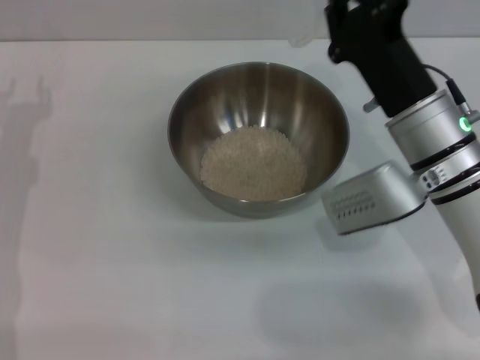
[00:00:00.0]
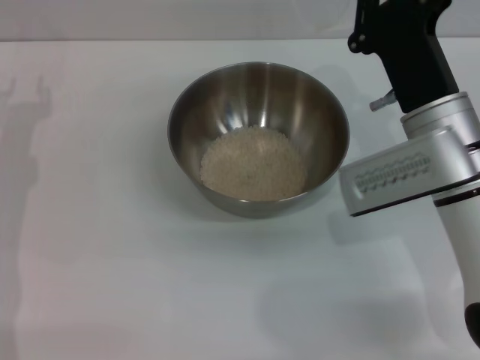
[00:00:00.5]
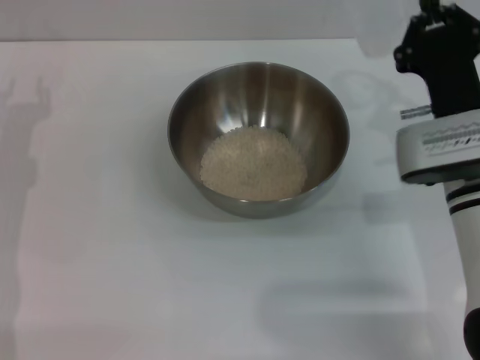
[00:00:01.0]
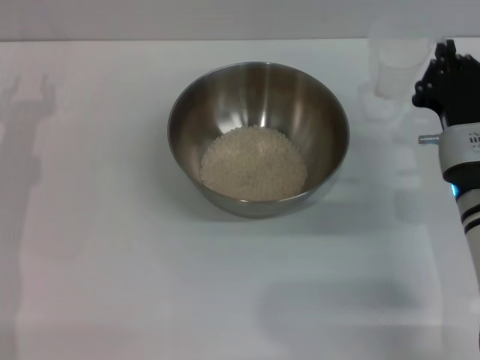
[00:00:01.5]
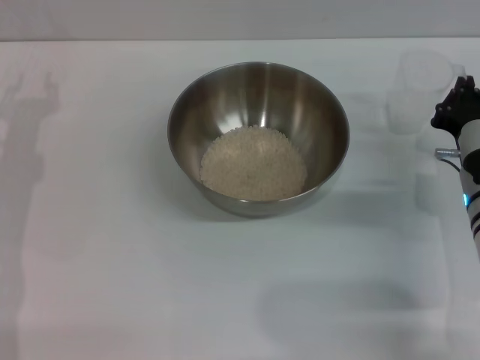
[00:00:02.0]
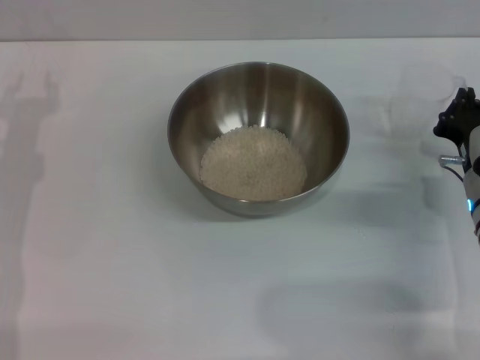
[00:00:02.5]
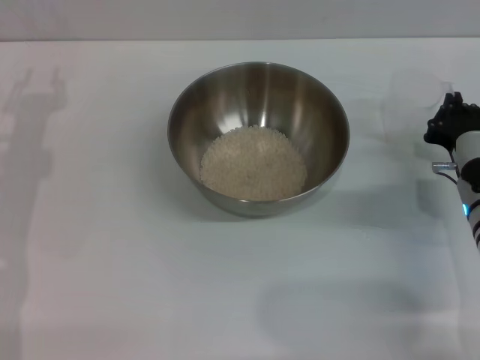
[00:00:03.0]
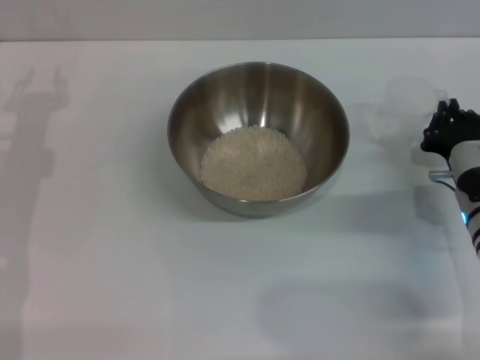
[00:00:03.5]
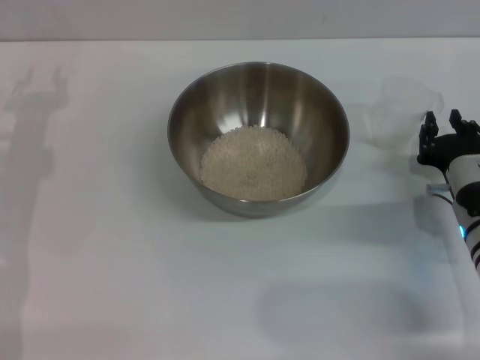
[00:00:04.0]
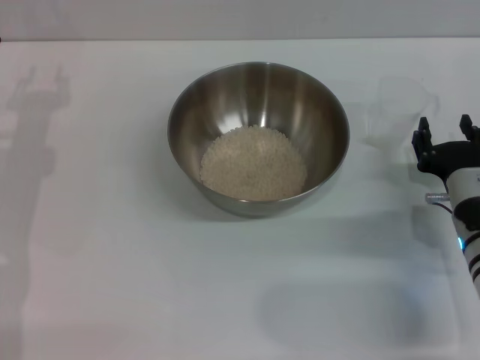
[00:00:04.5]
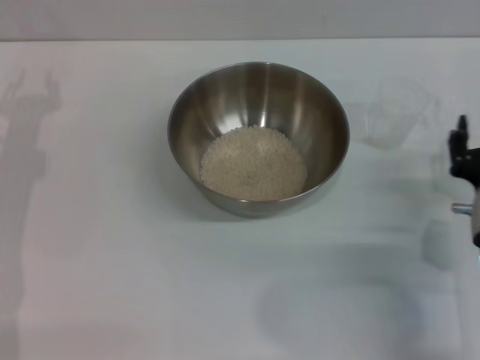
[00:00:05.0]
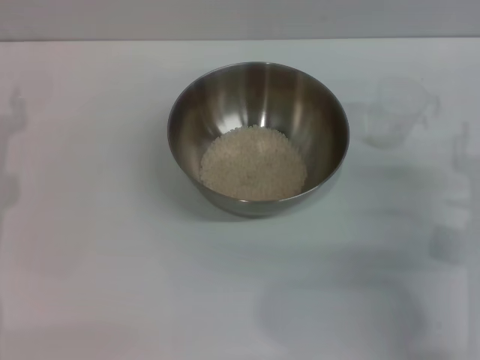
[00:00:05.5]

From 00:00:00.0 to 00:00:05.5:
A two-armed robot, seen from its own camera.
Task of the whole recording: Place the bowl in the middle of the table with one hand and pour the rice from the grain cup into it with the other hand.
Step, from 00:00:00.0 to 00:00:04.0: Place the cup on the table with the right gripper.
From 00:00:00.0 to 00:00:02.0: The right gripper heads to the right and downward, covering approximately 10 cm.
From 00:00:02.0 to 00:00:03.5: The grippers stay close to where they were, moving slightly.
From 00:00:03.5 to 00:00:05.5: The right gripper goes some 5 cm backward, and opens.

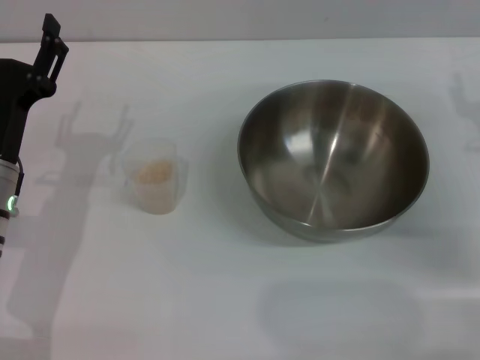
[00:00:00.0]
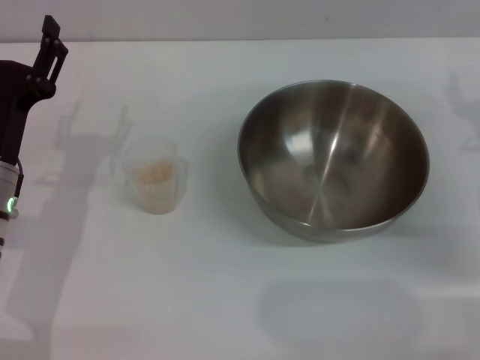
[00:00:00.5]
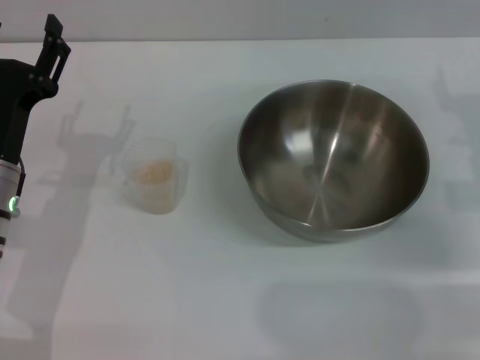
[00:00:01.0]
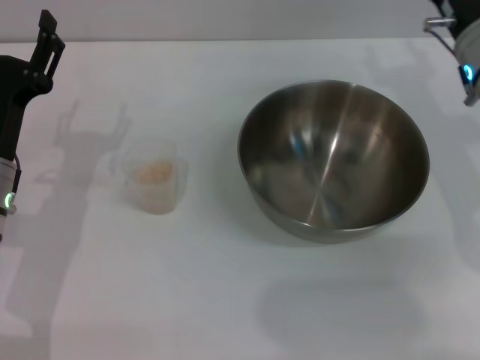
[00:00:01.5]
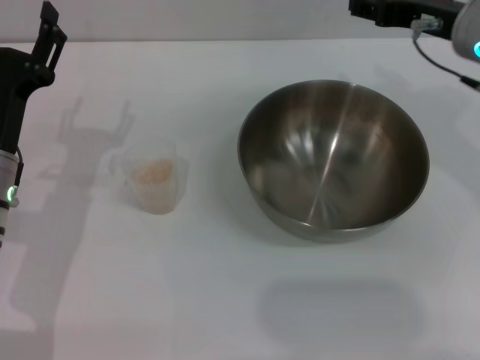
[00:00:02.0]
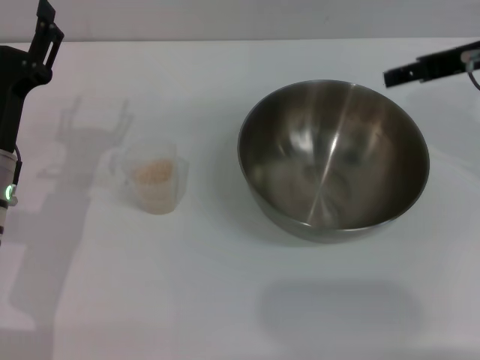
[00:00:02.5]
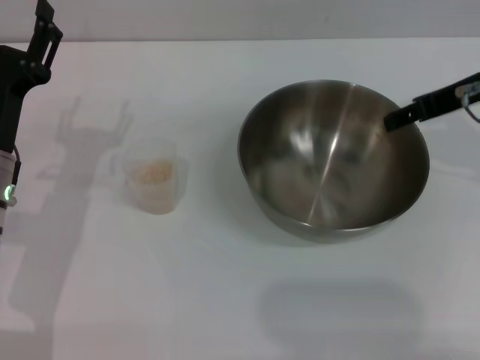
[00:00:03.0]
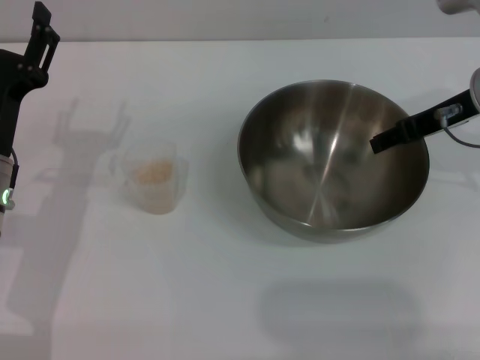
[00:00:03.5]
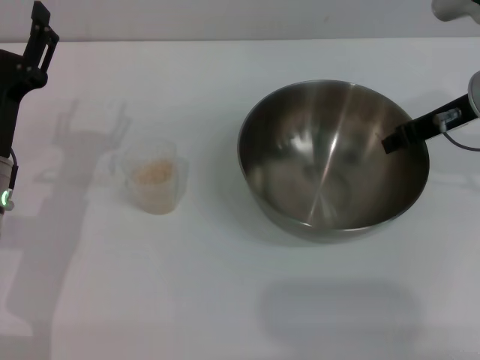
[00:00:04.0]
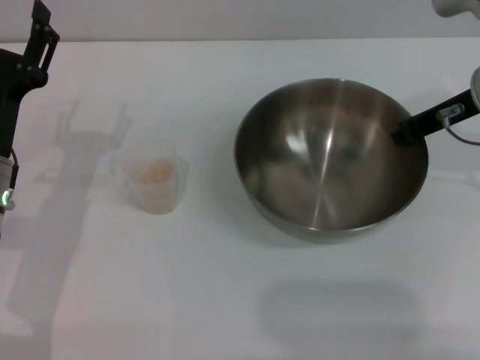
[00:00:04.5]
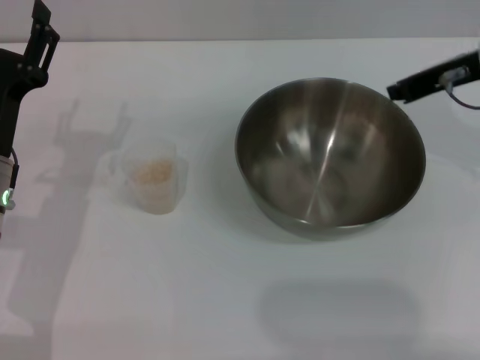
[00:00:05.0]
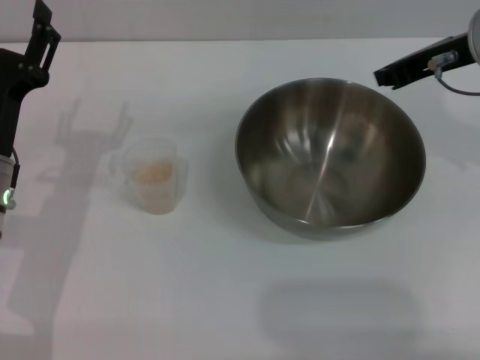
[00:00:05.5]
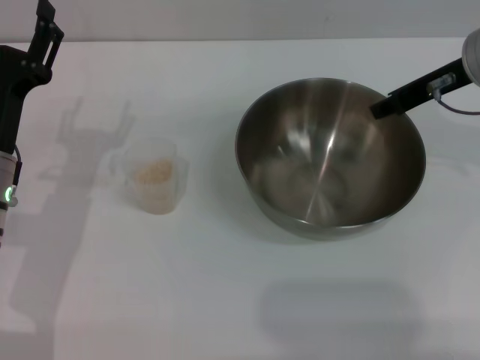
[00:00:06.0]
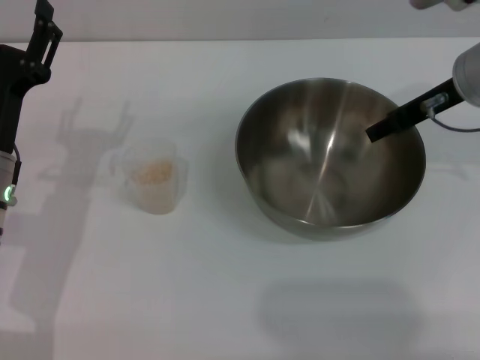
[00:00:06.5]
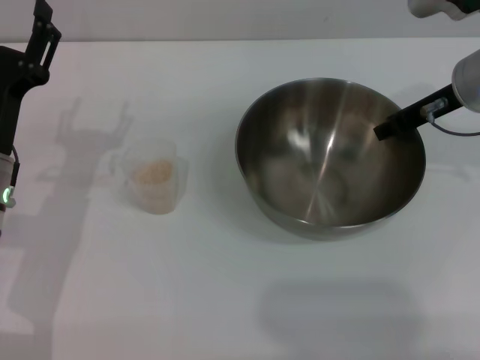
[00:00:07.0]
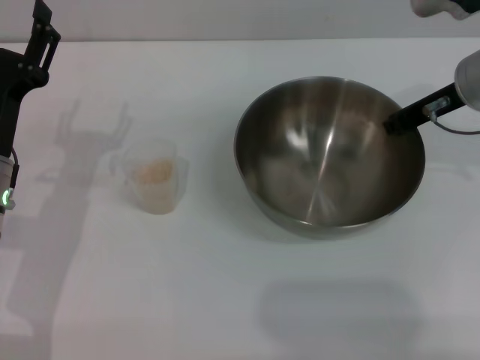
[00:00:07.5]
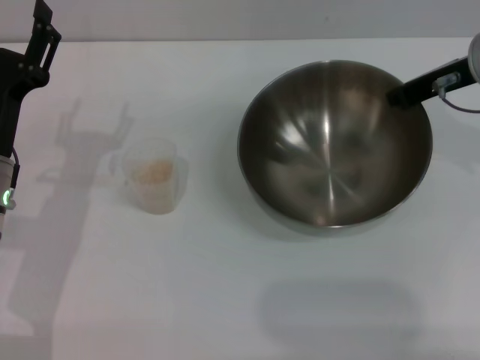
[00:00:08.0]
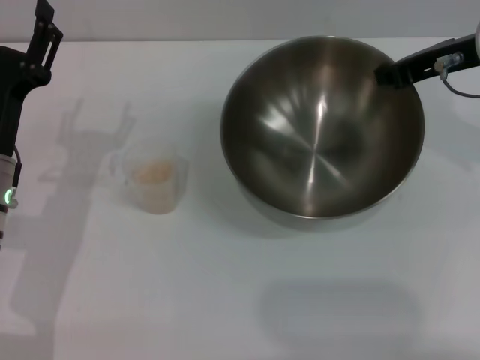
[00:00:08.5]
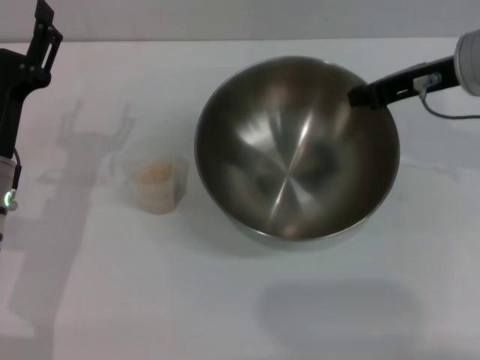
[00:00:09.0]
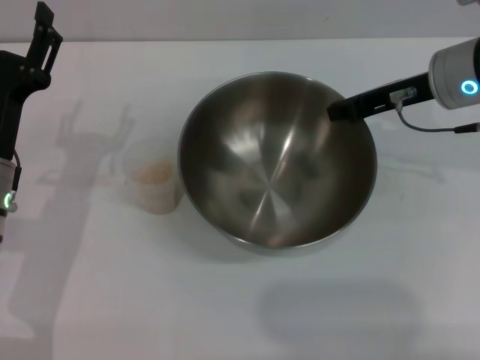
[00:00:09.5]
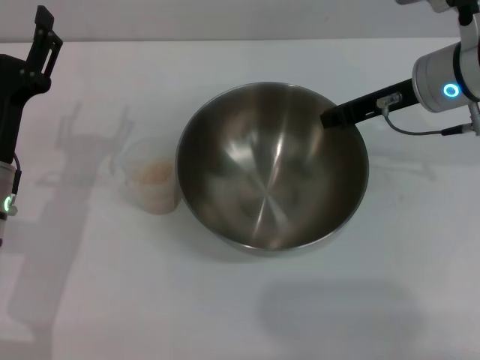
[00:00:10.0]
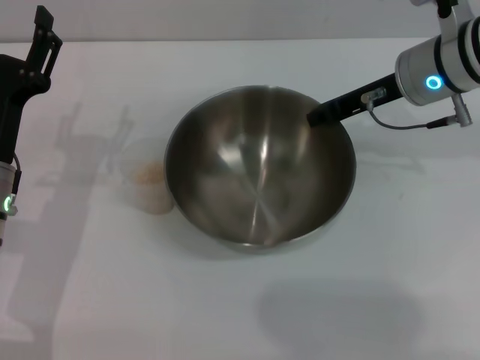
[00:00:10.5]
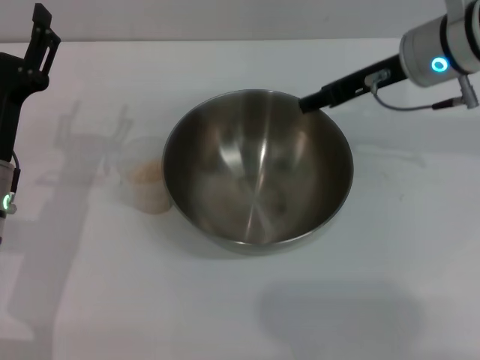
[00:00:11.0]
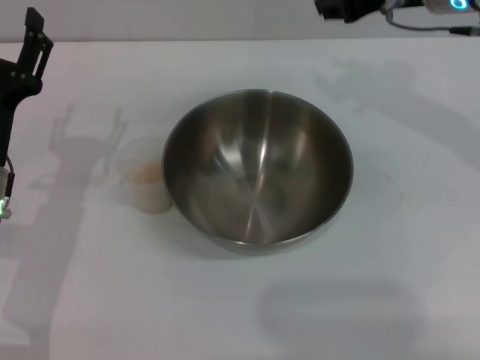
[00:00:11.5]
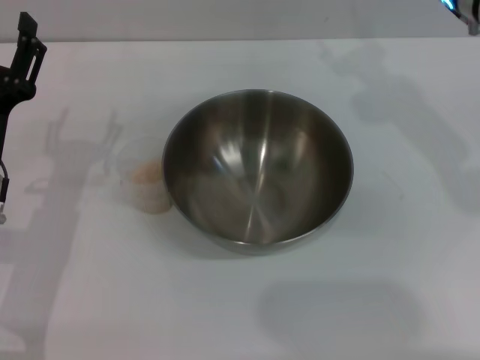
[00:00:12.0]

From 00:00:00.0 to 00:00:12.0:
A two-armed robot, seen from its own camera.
Task of the whole recording: Place the bowl in the middle of the table with one hand and pour the rice from the grain cup into it with the other hand.
Step, from 00:00:00.0 to 00:00:08.5: Pick up the bowl with the right gripper.
Step, from 00:00:09.0 to 00:00:11.0: Place the bowl in the center of view with the right gripper.
From 00:00:00.0 to 00:00:02.0: The right gripper heads upward, to the left and forward, covering some 15 cm.
From 00:00:02.0 to 00:00:04.0: The right gripper closes up.
From 00:00:04.0 to 00:00:06.0: The grippers stay close to where they were, moving slightly.
From 00:00:06.0 to 00:00:08.0: The right gripper opens, then closes once more.
From 00:00:10.0 to 00:00:12.0: The right gripper goes some 5 cm upward, and opens its fingers.

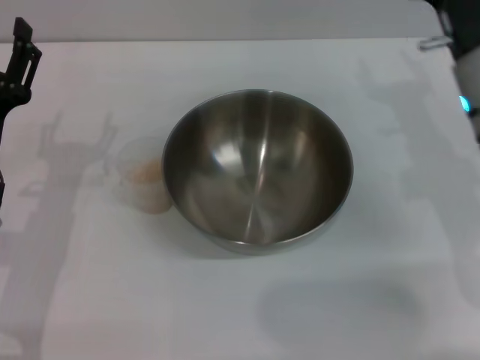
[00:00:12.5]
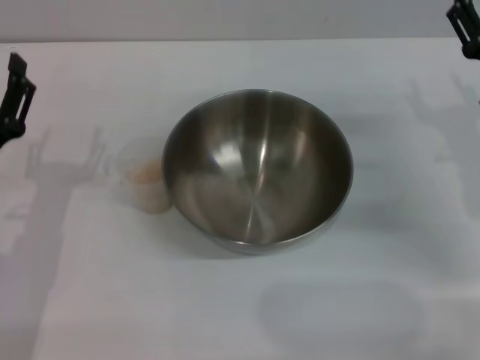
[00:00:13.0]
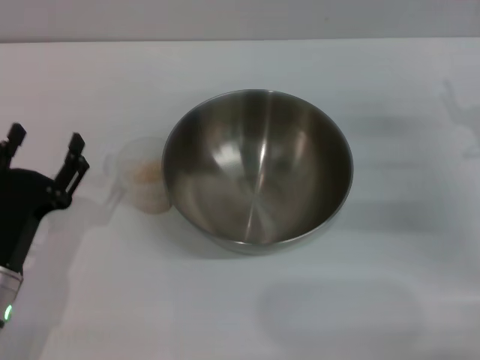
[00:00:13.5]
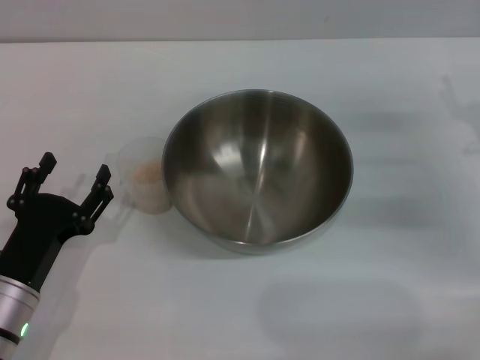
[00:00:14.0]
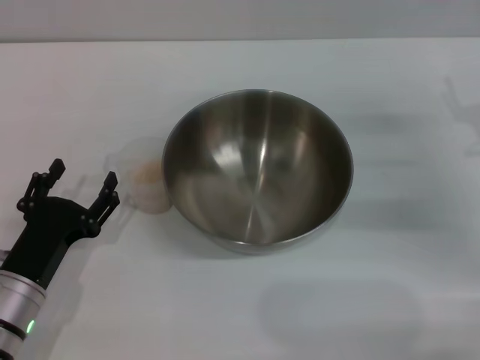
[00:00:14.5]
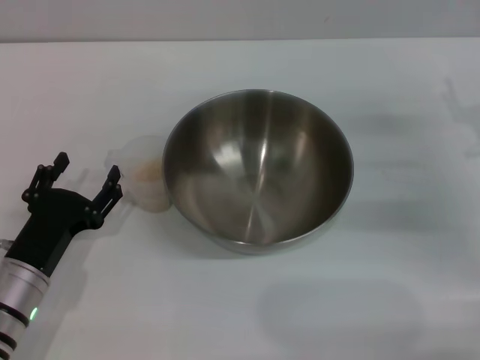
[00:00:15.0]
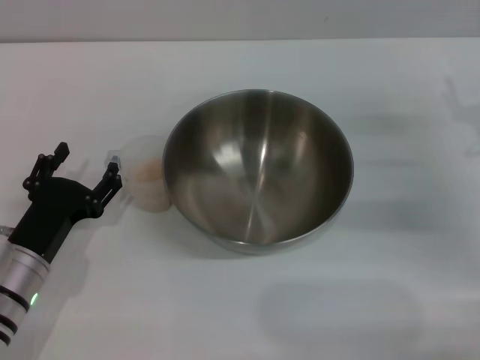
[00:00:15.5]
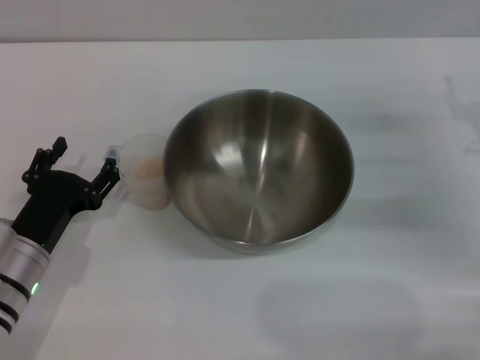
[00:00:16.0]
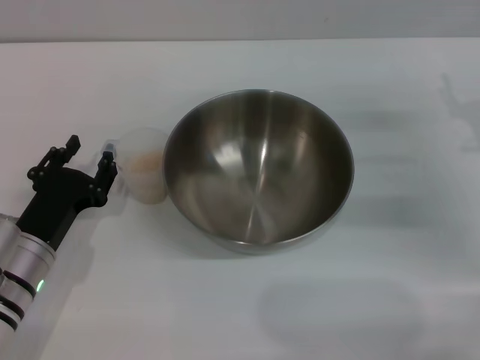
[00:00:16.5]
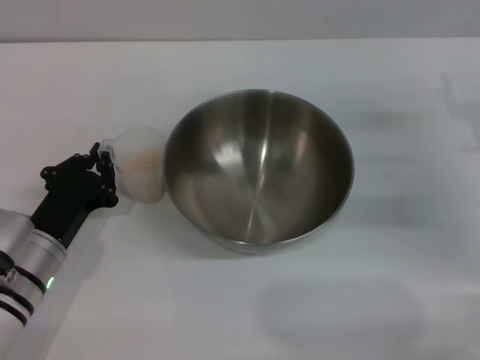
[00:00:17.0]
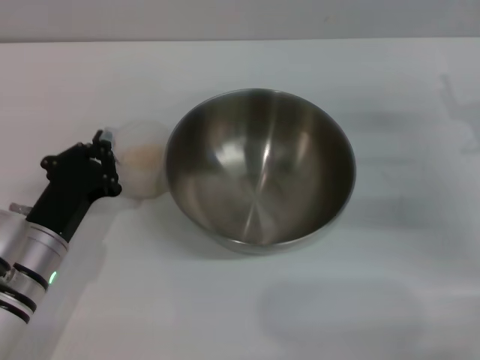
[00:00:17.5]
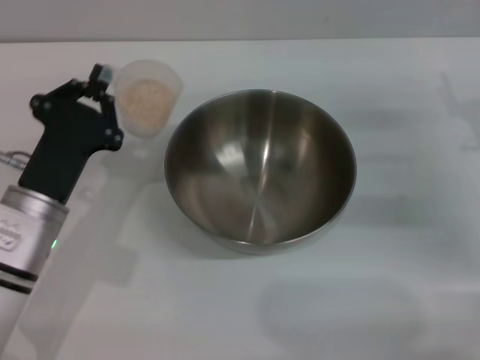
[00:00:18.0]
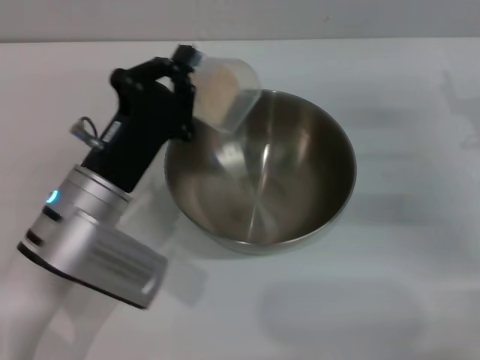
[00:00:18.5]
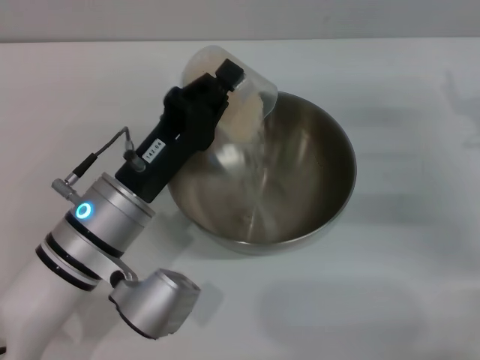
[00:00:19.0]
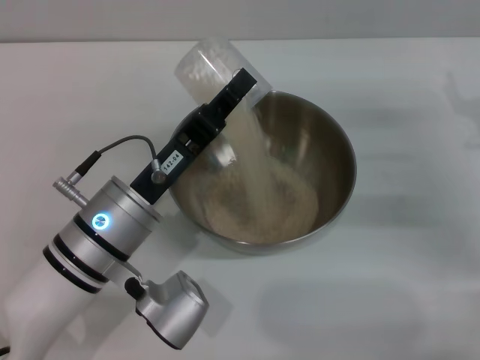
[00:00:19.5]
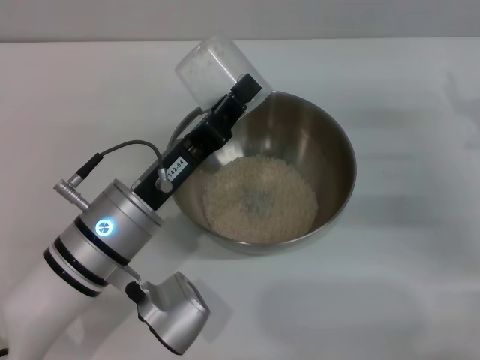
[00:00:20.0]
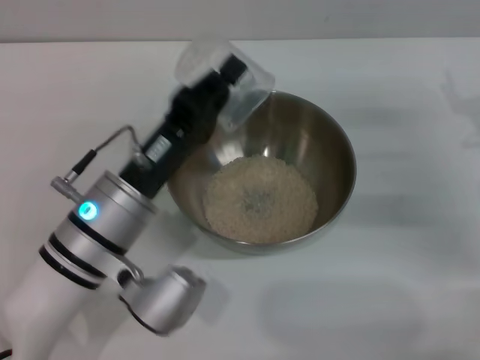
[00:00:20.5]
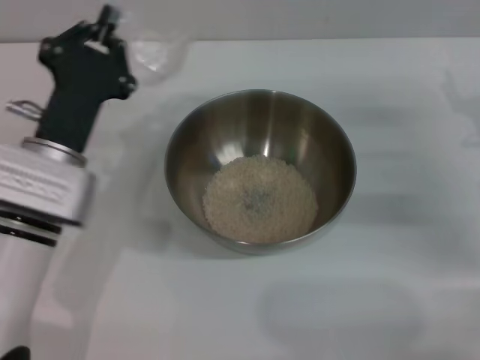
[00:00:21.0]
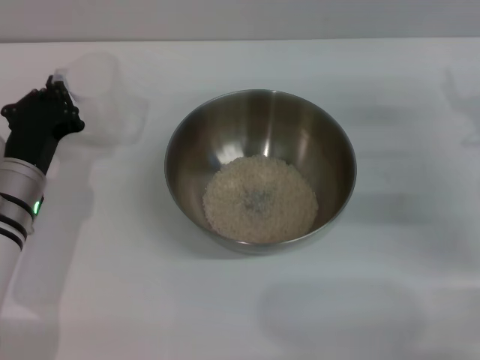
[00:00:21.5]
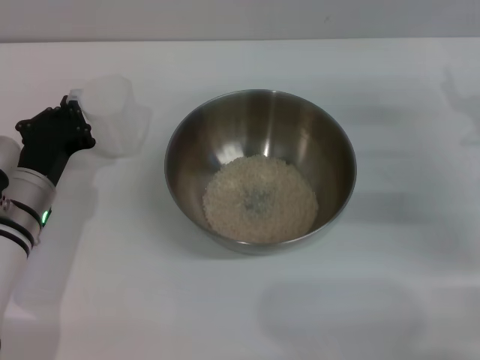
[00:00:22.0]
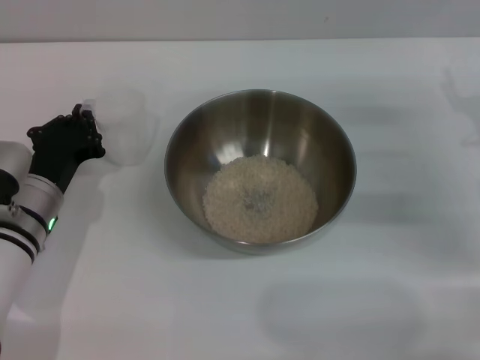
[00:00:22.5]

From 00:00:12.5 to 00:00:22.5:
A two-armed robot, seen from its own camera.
Task of the whole recording: Place the bowl in the middle of the table with one hand and pour the rice from the grain cup into it with the other hand.
Step, from 00:00:12.5 to 00:00:17.5: Pick up the cup with rice in it with the left gripper.
Step, from 00:00:18.0 to 00:00:21.0: Pour the rice from the cup into the bowl with the left gripper.
From 00:00:12.5 to 00:00:14.5: The right gripper travels to the right by about 10 cm. Meanwhile the left gripper shifts about 10 cm downward and backward.
From 00:00:14.5 to 00:00:16.5: There are only small adjustments of the grippers.
From 00:00:16.5 to 00:00:18.5: The left gripper goes about 10 cm to the right and upward, and closes up.
From 00:00:20.5 to 00:00:22.5: The left gripper goes about 10 cm to the left and downward.
